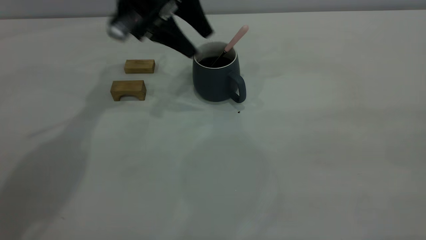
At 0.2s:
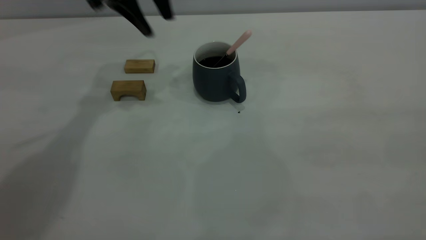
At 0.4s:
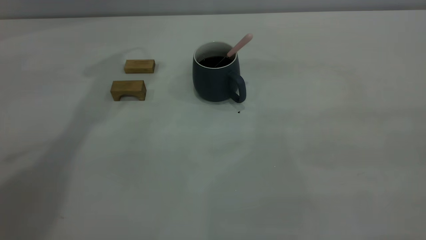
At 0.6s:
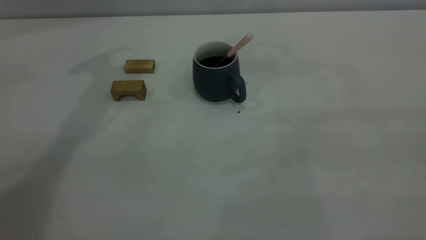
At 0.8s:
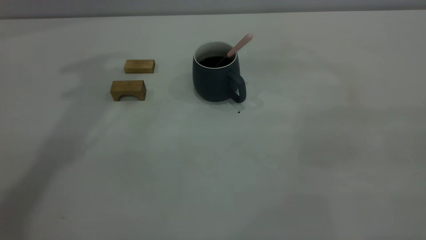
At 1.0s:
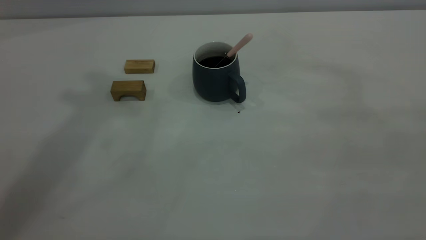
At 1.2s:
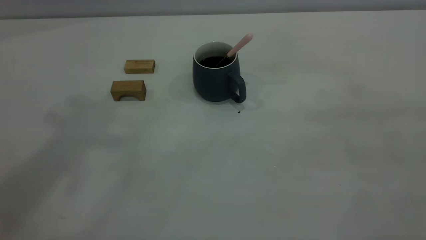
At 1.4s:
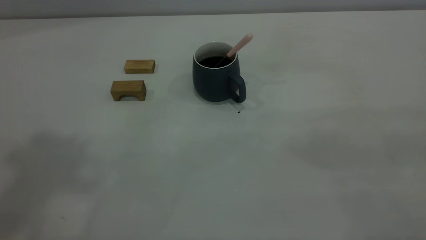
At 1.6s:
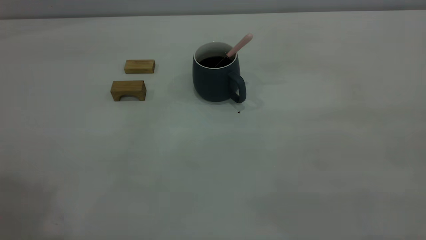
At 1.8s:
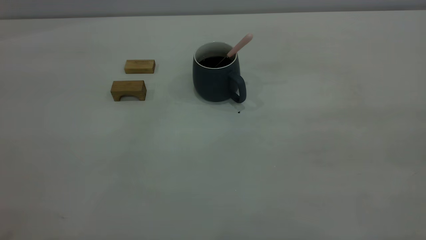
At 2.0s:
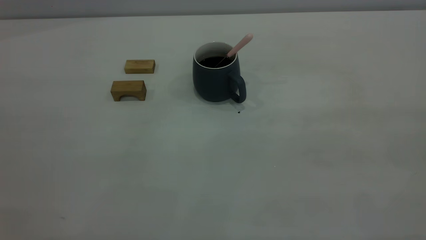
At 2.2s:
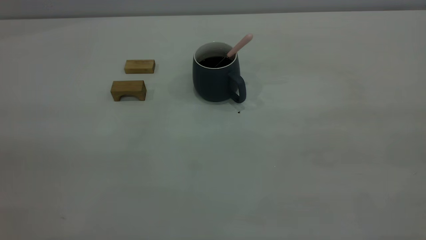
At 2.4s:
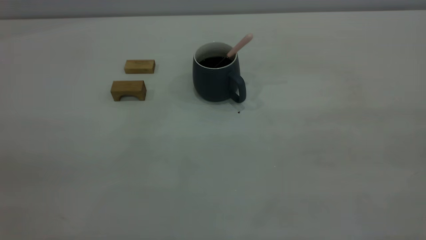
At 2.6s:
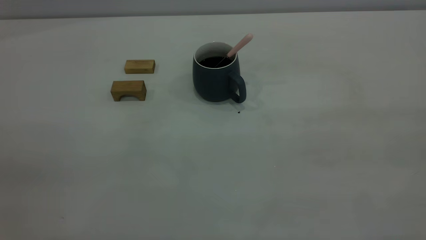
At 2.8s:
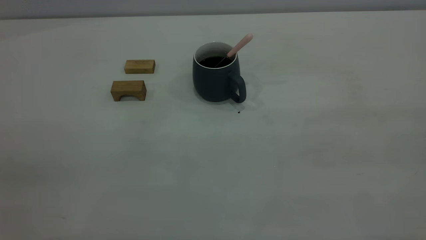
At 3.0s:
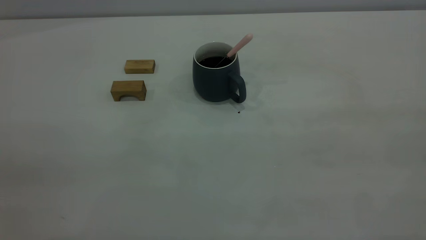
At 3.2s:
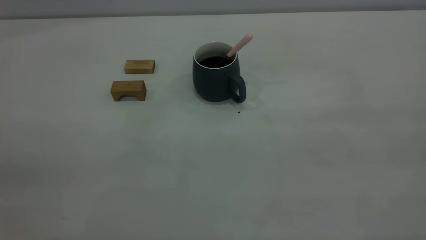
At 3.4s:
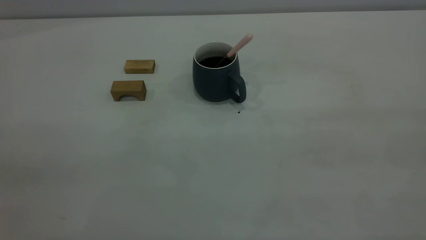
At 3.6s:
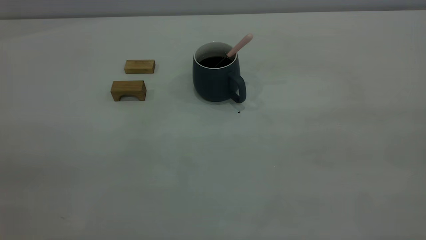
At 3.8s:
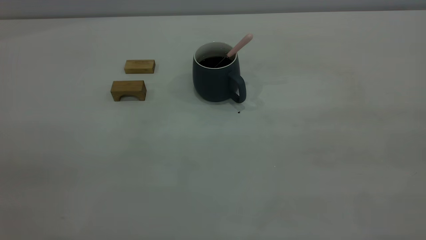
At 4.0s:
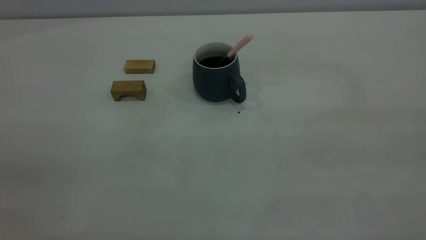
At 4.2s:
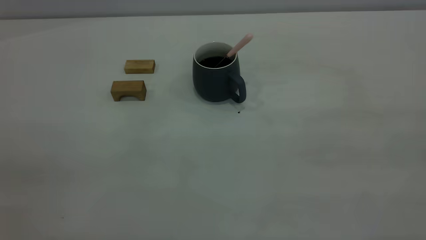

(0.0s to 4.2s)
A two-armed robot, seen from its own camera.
0.0s - 1.4s: The left gripper shifts about 50 cm upward and backward, and closes up.
2.8s - 4.2s: The two grippers keep their place.

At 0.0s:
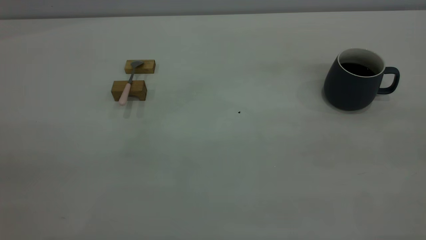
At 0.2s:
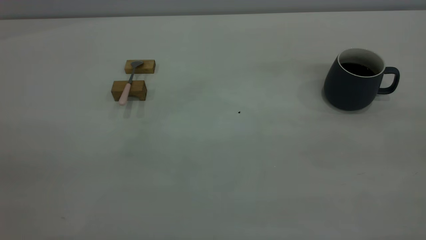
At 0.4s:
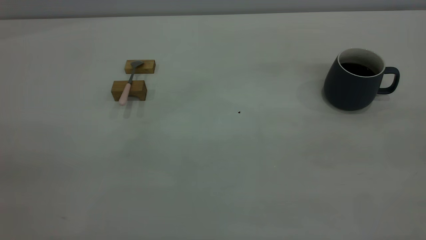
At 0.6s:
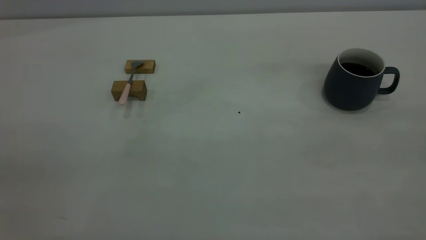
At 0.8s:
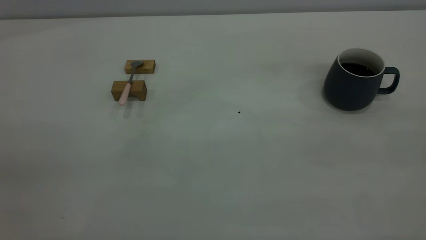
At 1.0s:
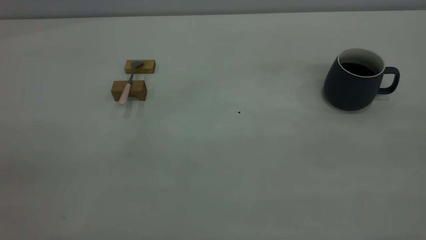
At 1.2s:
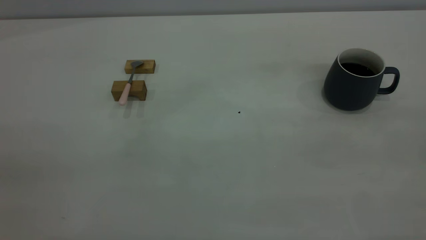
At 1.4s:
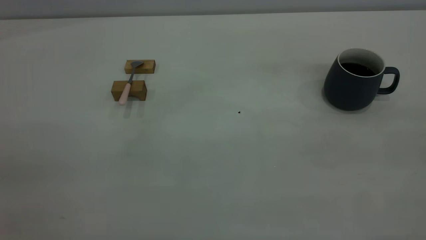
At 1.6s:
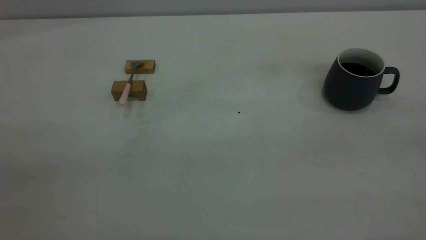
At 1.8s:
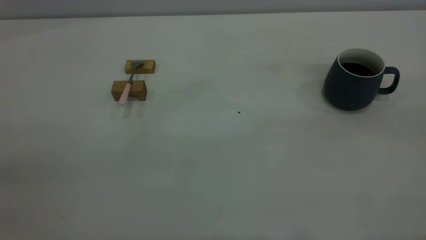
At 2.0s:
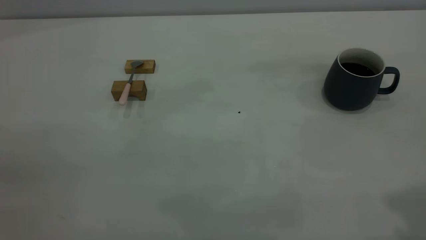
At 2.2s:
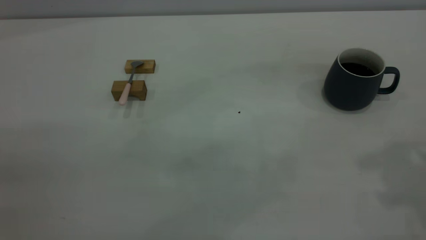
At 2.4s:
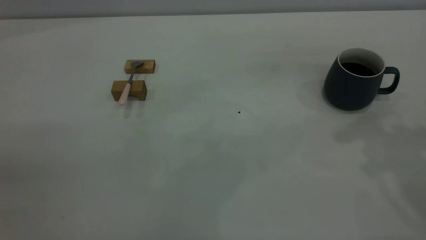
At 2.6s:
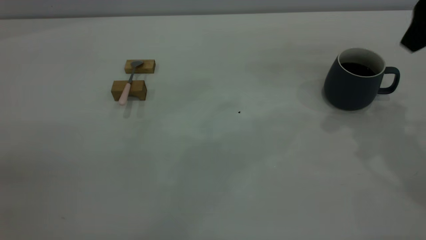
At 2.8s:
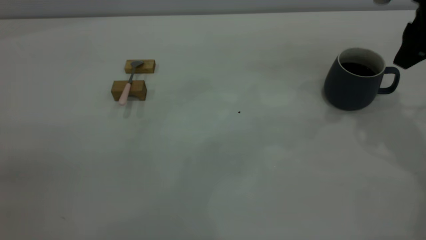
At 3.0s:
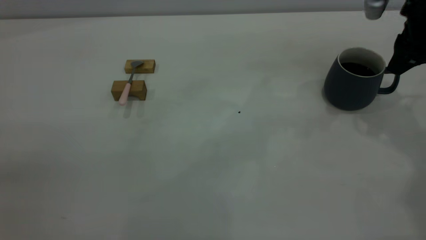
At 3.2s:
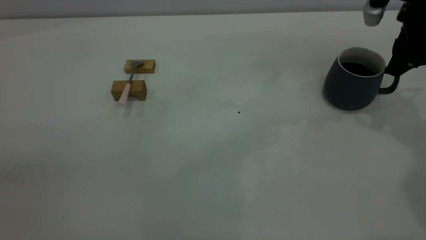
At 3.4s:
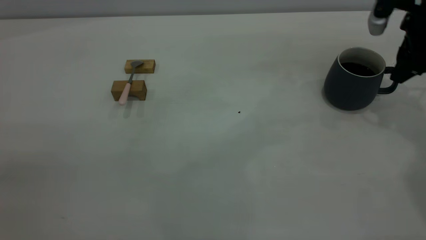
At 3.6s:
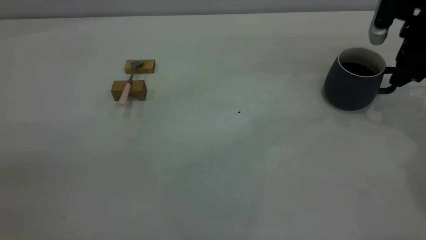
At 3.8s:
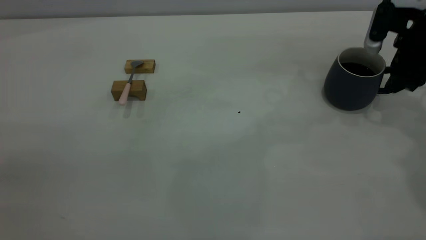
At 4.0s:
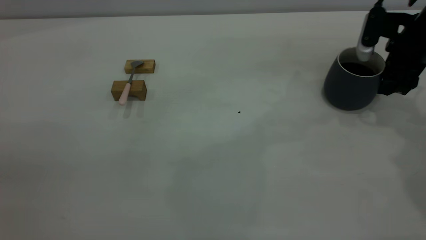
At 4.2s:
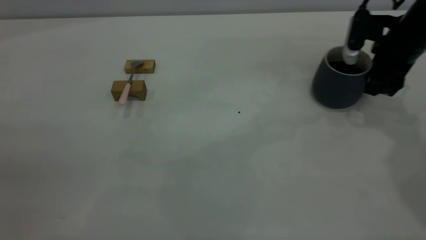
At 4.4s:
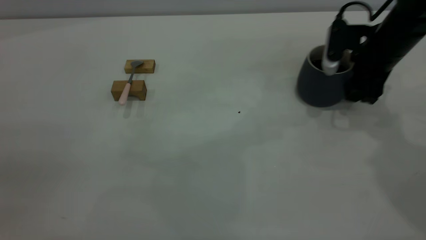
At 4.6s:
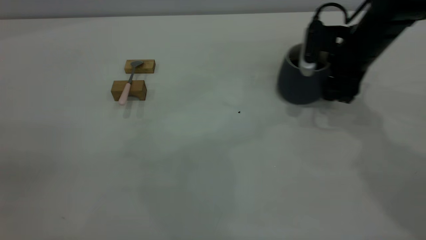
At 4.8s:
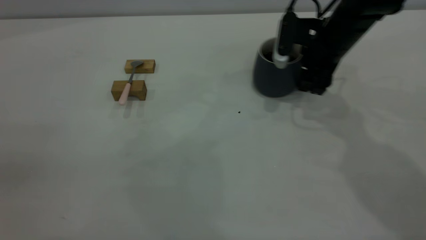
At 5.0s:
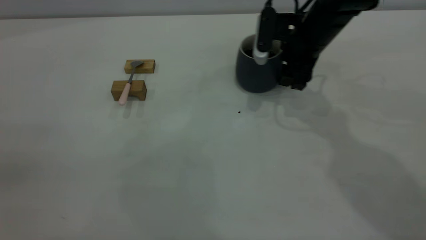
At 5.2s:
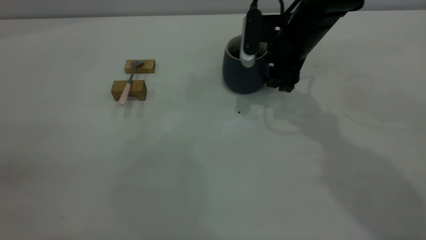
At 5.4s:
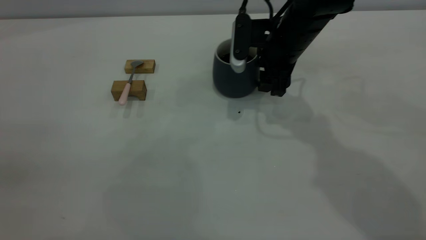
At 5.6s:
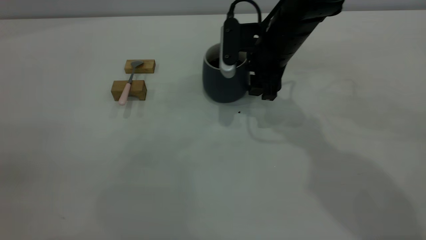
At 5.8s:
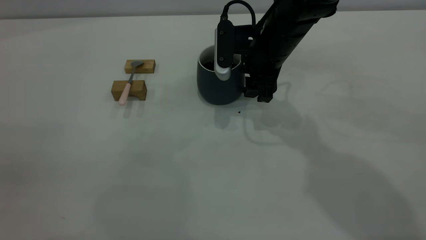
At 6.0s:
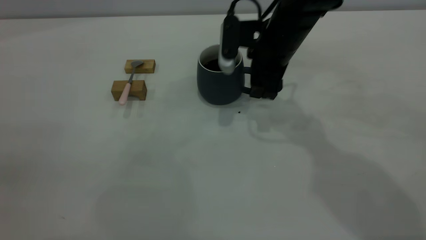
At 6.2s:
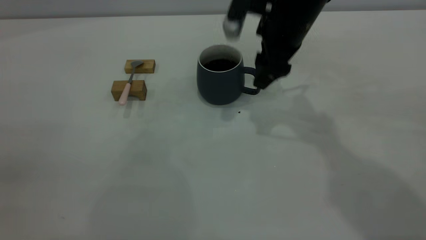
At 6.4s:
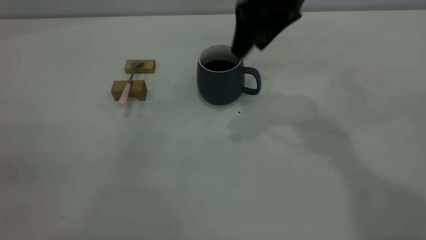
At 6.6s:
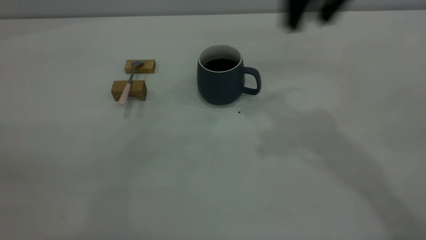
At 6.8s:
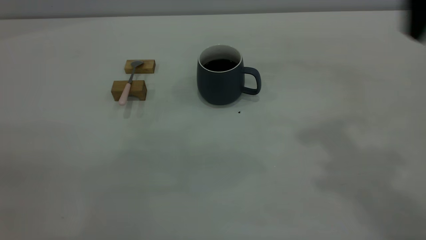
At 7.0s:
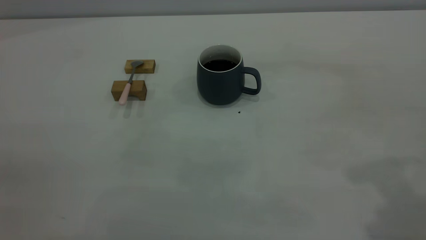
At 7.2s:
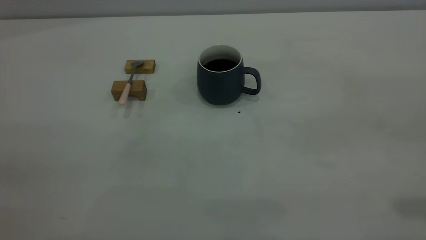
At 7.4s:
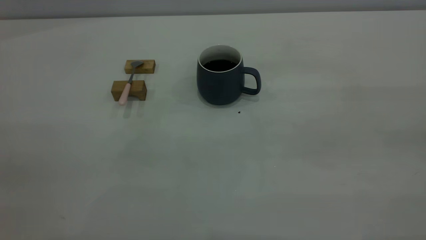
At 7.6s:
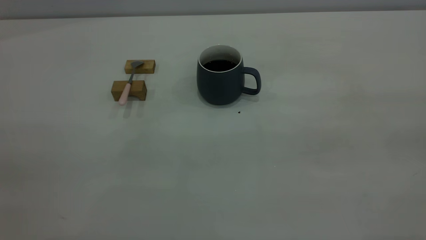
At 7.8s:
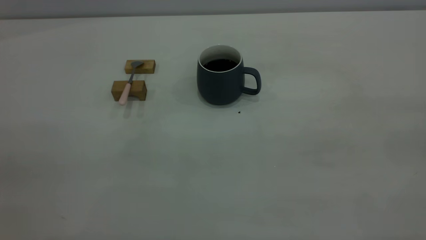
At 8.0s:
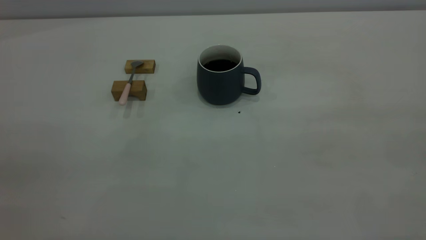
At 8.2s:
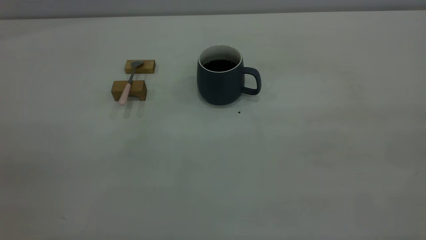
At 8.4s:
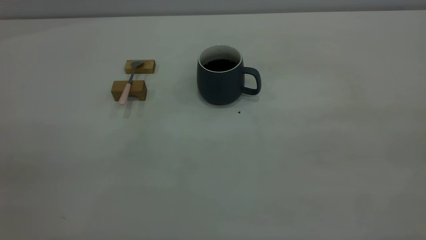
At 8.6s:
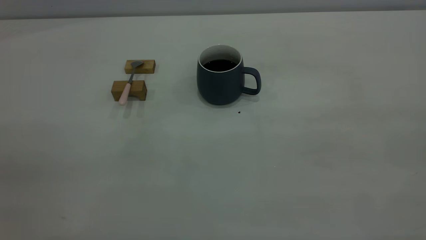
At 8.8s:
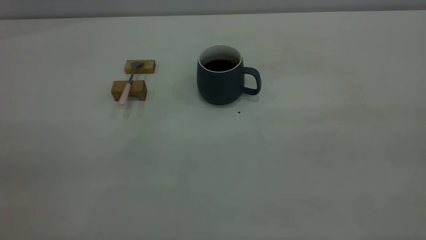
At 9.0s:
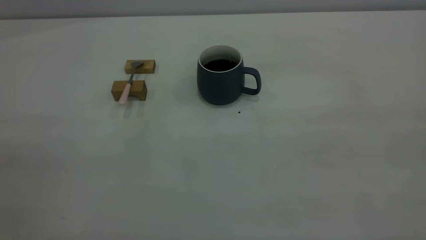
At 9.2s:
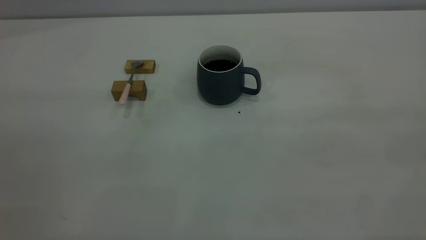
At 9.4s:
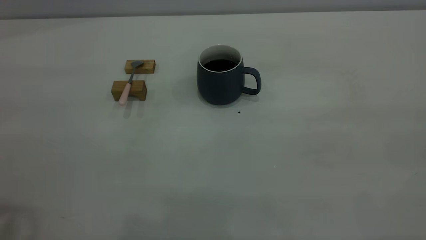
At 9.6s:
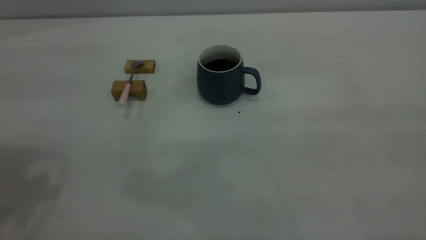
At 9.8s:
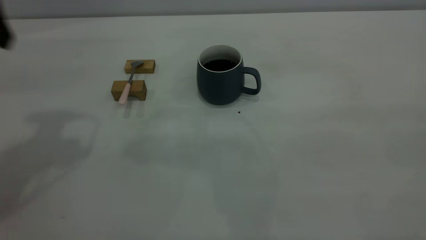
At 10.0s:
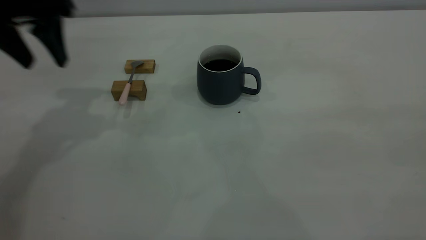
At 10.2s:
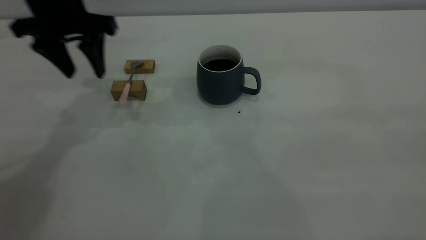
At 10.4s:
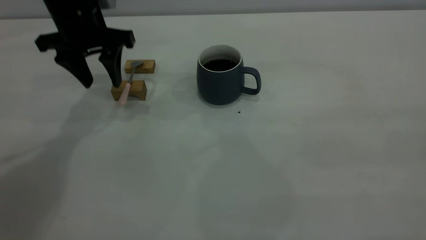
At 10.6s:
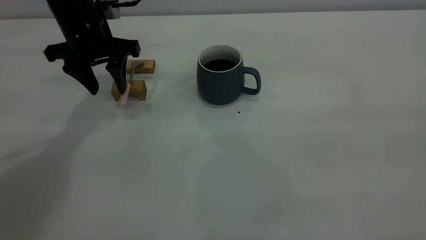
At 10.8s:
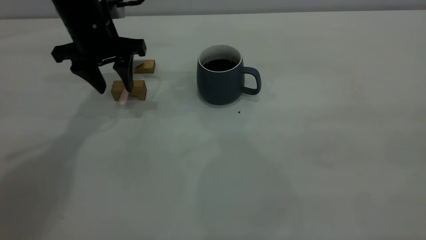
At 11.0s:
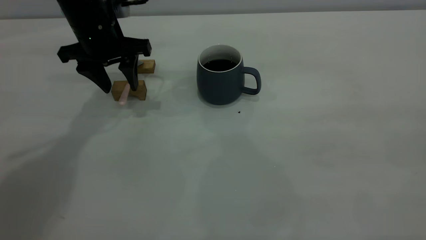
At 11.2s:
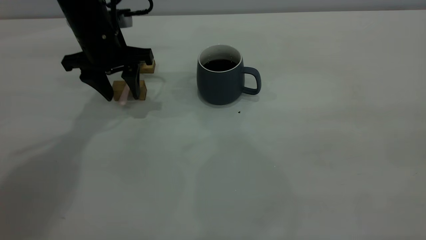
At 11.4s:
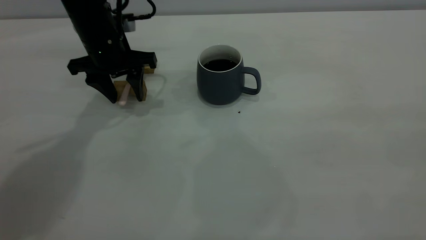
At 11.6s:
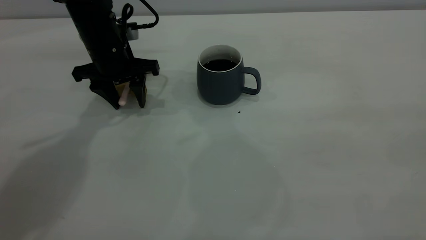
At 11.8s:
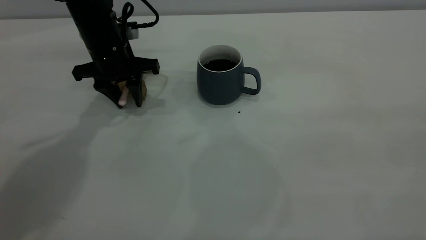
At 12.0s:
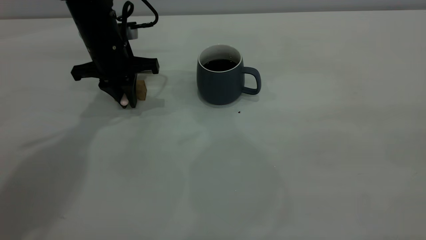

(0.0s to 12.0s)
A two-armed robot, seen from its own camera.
Step, 0.0s - 6.4s: Move the cup with coffee to the center of view.
1.6s - 3.0s: The right gripper is displaced forward and downward by about 40 cm.
3.0s - 4.4s: The right gripper shifts roughly 10 cm downward.
4.4s - 6.0s: The right gripper moves to the left, about 15 cm.
6.0s - 7.6s: The right gripper moves backward, upward and to the right, some 50 cm.
9.0s - 10.4s: The left gripper shifts some 50 cm forward and downward.
10.4s - 12.0s: The left gripper is displaced downward by some 5 cm, and closes.

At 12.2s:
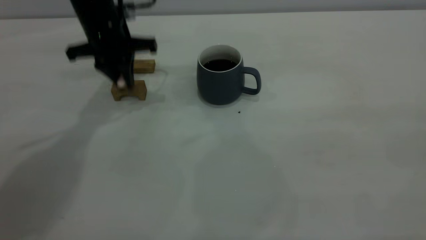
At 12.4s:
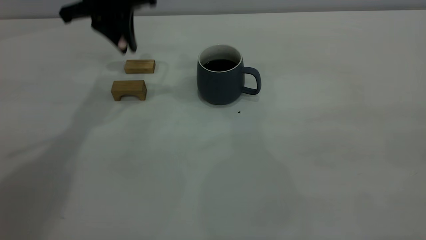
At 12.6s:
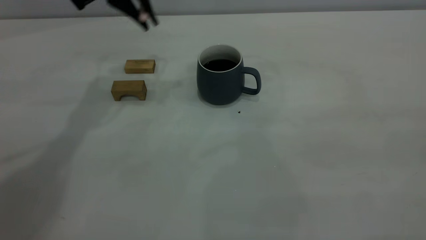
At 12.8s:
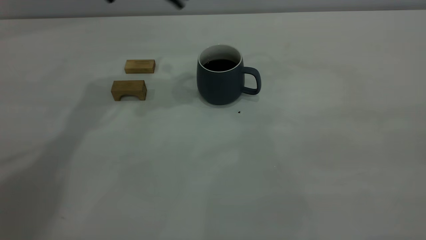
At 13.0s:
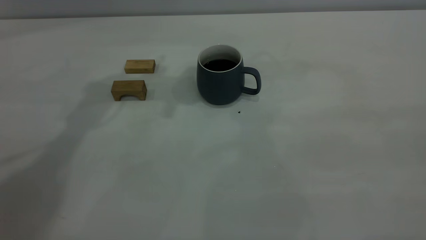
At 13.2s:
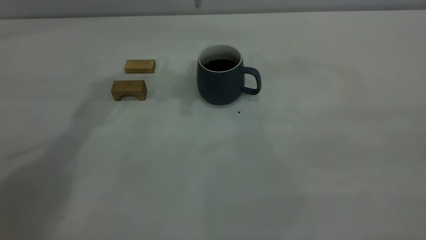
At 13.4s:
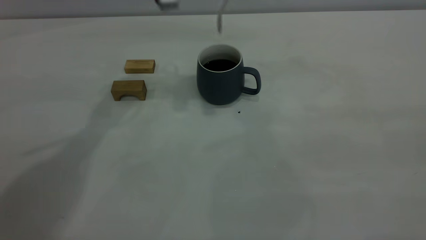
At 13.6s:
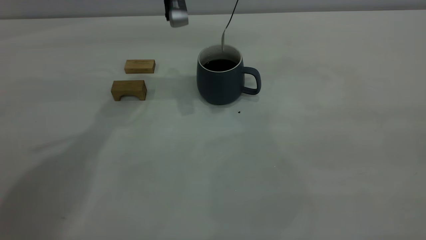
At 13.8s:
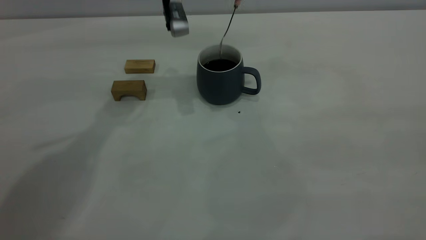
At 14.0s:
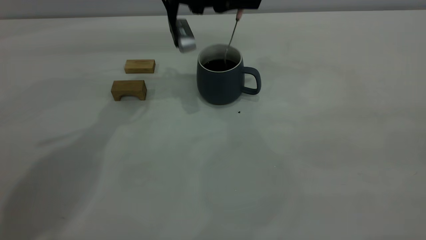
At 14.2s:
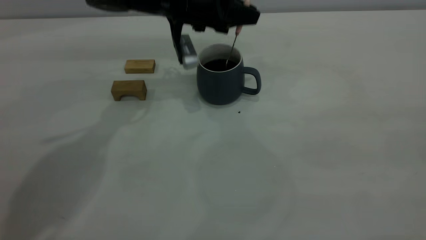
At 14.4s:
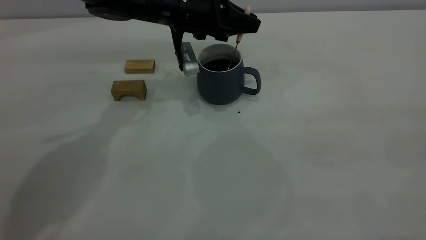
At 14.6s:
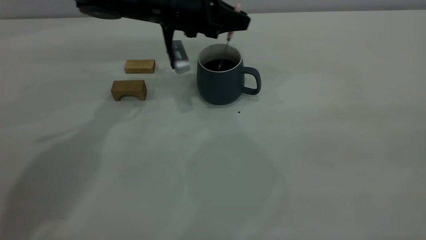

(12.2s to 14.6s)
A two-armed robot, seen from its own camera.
12.2s - 13.4s: The left gripper is displaced to the right and upward by some 15 cm.
13.4s - 14.6s: The left gripper heads downward, covering approximately 10 cm.
